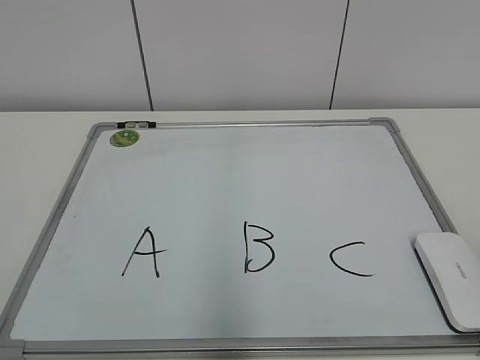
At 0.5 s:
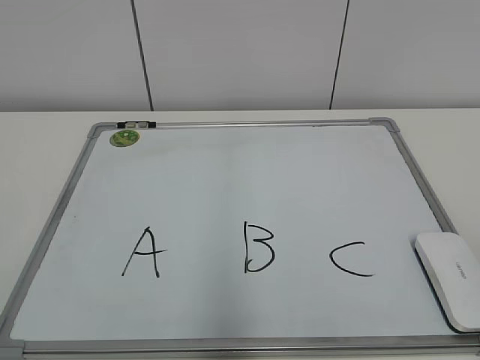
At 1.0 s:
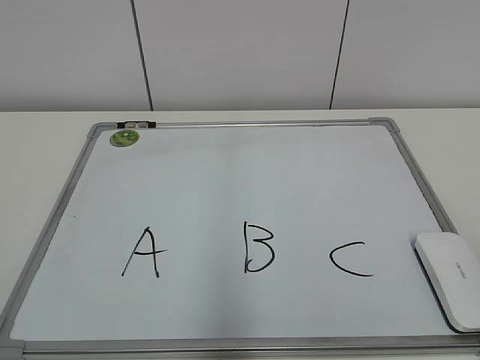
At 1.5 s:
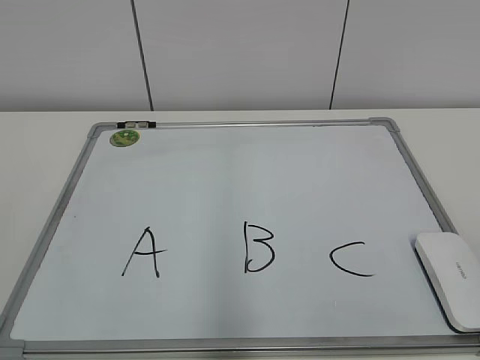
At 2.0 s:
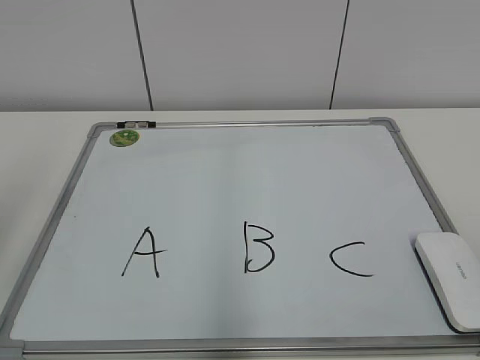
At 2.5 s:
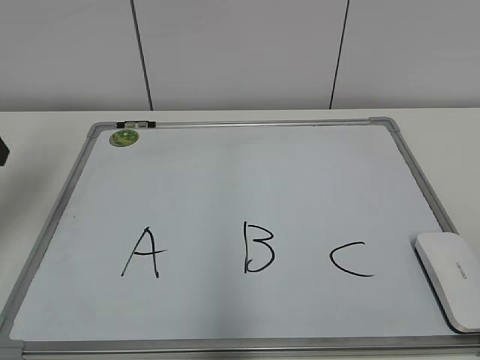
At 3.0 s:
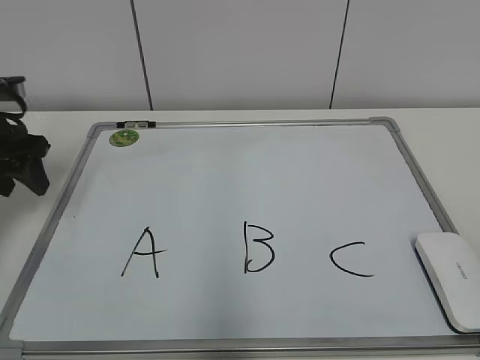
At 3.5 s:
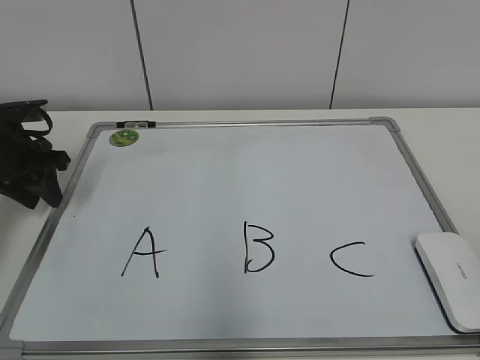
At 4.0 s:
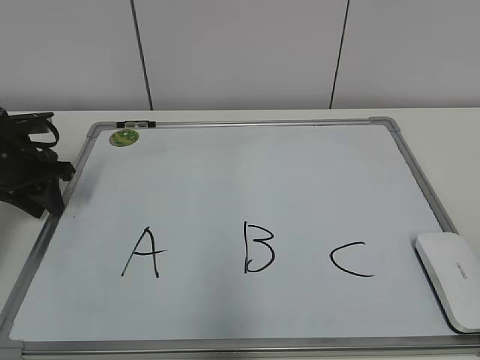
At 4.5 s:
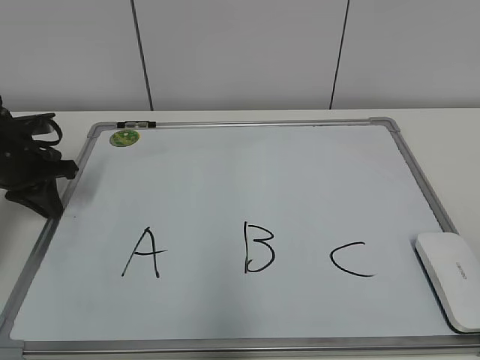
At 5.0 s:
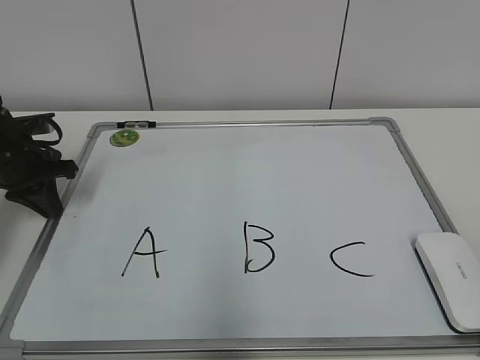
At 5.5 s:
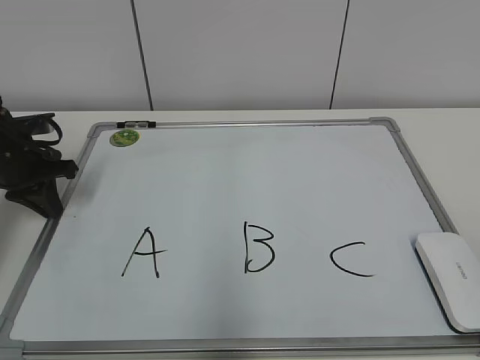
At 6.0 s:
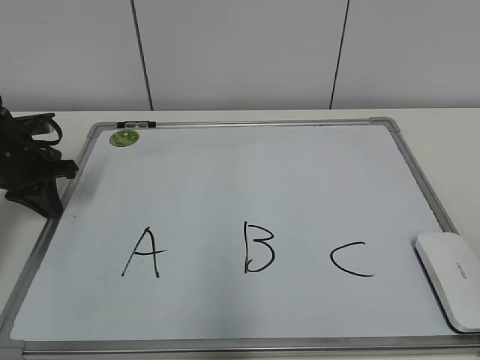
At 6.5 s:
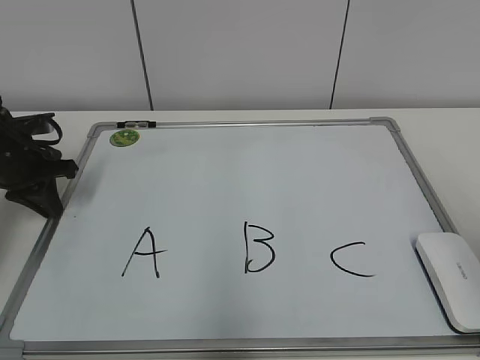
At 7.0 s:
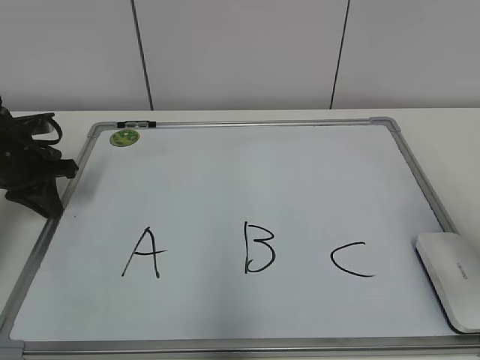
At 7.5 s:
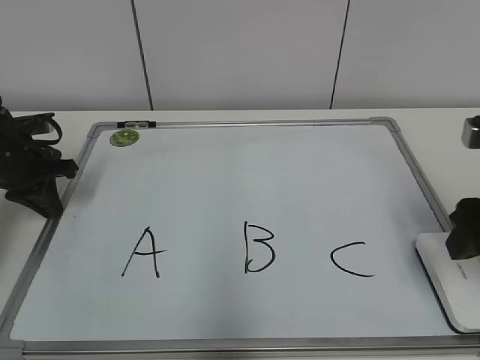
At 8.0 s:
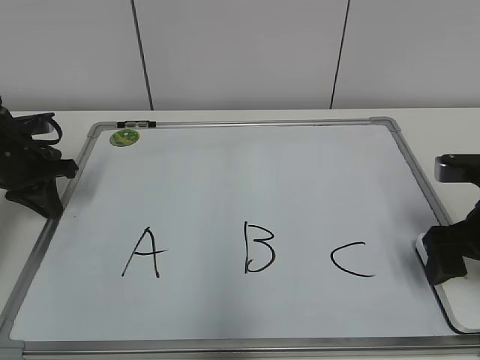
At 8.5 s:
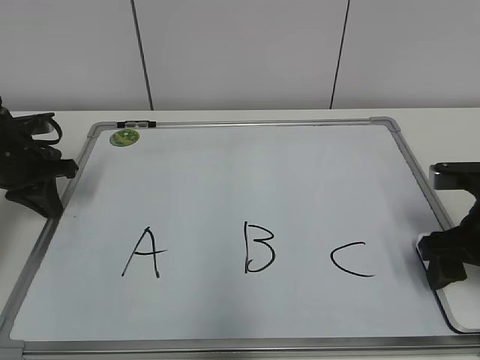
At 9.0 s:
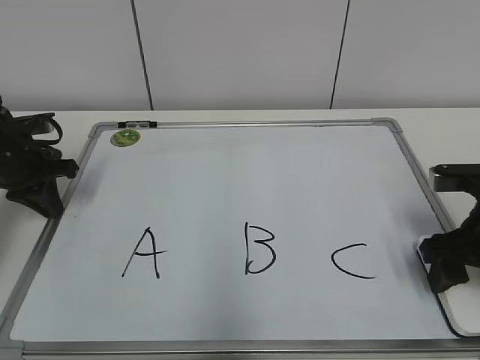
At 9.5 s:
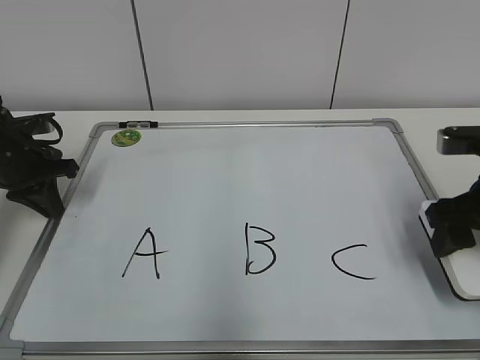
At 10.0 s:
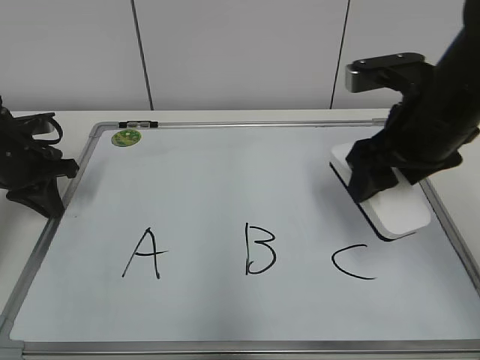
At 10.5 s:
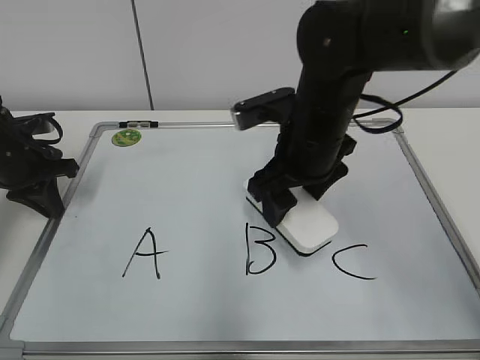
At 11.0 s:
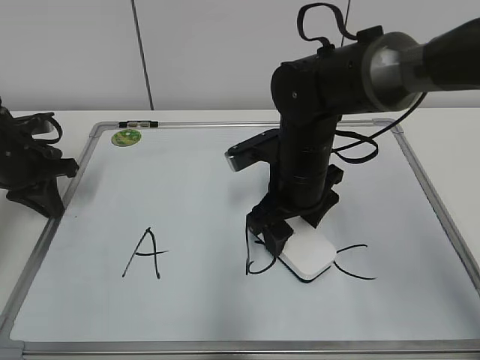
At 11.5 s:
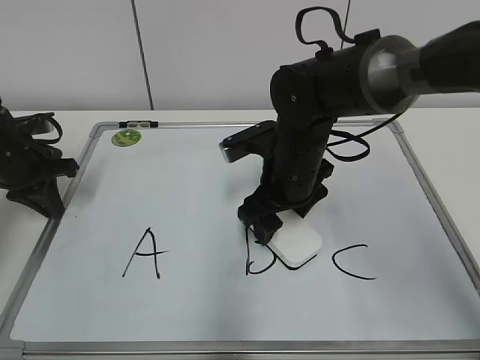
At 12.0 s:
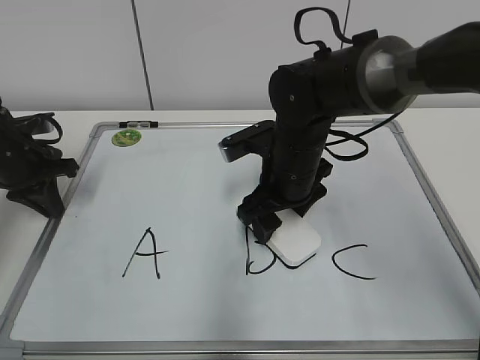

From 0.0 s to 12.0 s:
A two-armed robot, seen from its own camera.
Task of the whole recording: pick up the eraser on the blackboard and erase the letter "B".
Step, from 0.0 s to 4.0 s: Hold the drawing board steady with your left hand.
Step, from 5.0 s to 8.5 s: Grab the eraser with your right hand.
From 2.0 s to 4.0 s: The left gripper goes about 30 cm forward and downward, and closes.
From 4.0 s to 6.0 s: The left gripper closes up.
From 6.0 s to 8.0 s: The right gripper moves forward and downward, about 30 cm, and opens its fingers.
From 8.0 s to 10.0 s: The right gripper heads upward and to the left, covering some 10 cm, and closes up.
From 10.0 s to 12.0 s: The right gripper shifts approximately 15 cm to the left, downward and forward.

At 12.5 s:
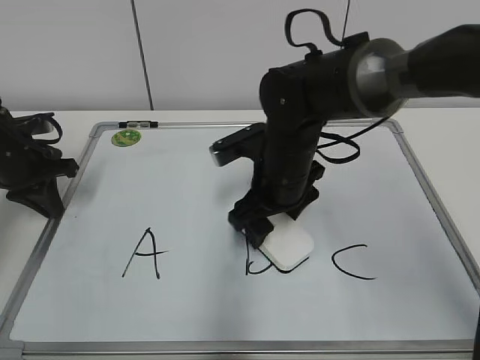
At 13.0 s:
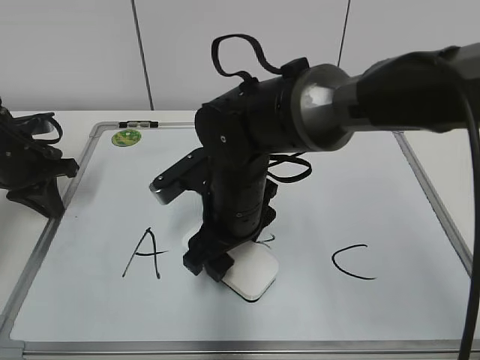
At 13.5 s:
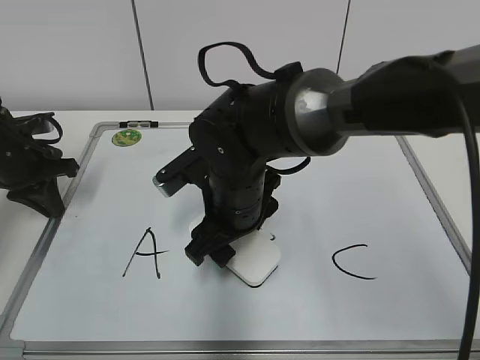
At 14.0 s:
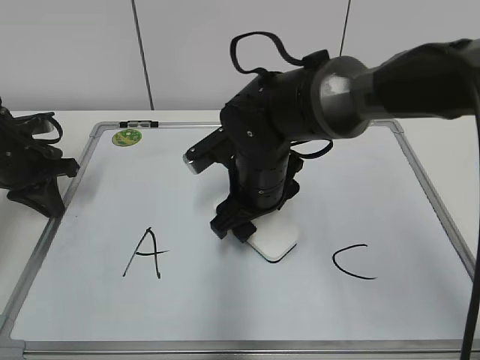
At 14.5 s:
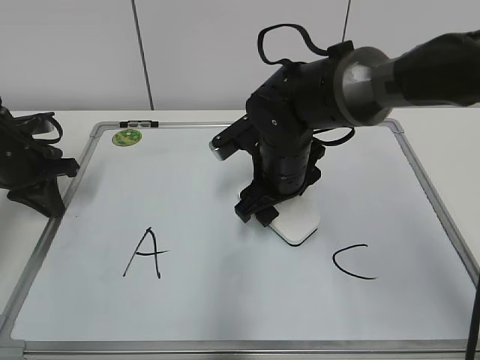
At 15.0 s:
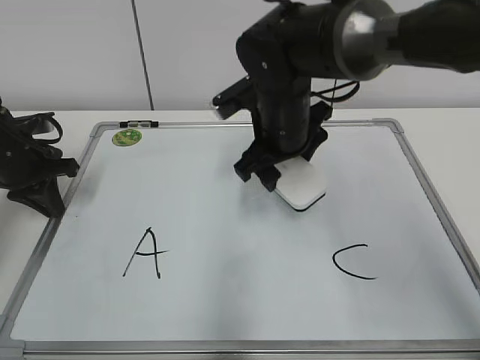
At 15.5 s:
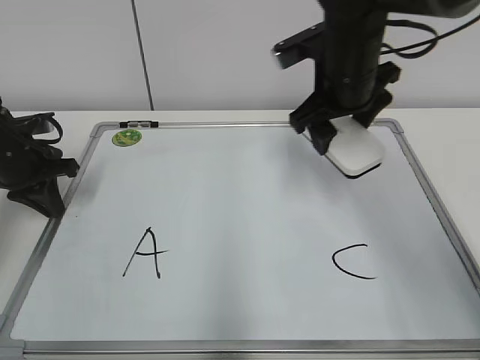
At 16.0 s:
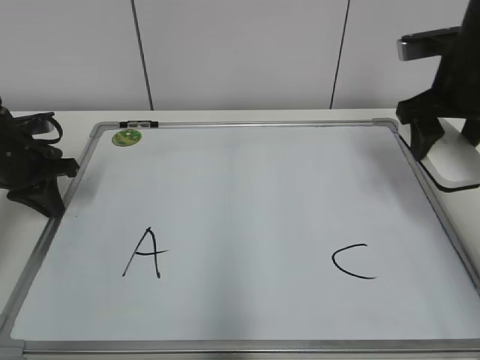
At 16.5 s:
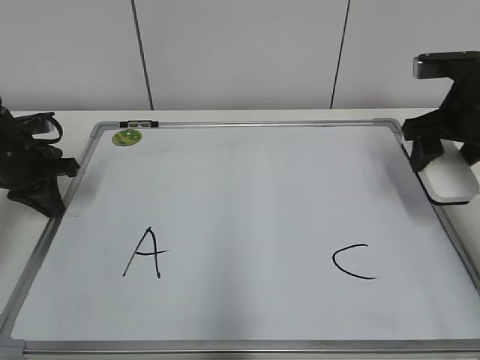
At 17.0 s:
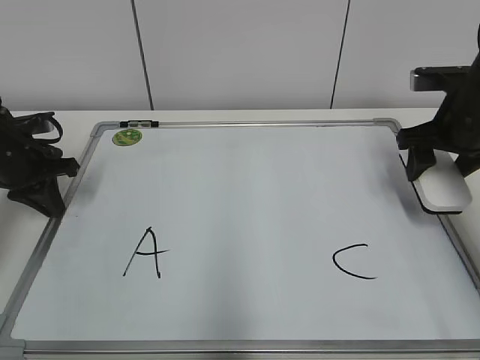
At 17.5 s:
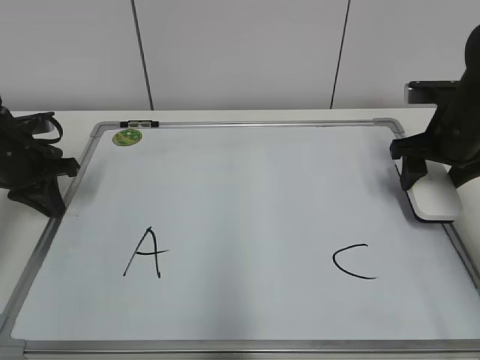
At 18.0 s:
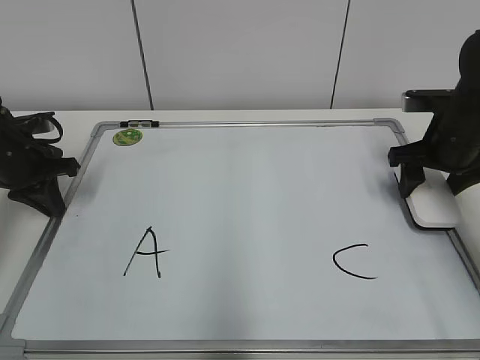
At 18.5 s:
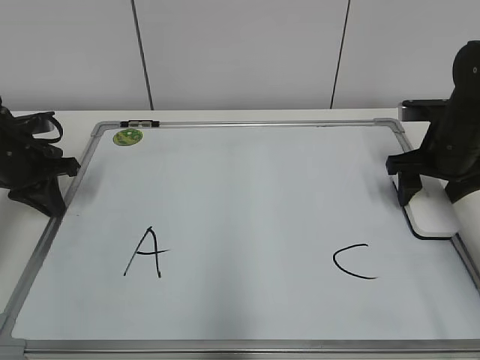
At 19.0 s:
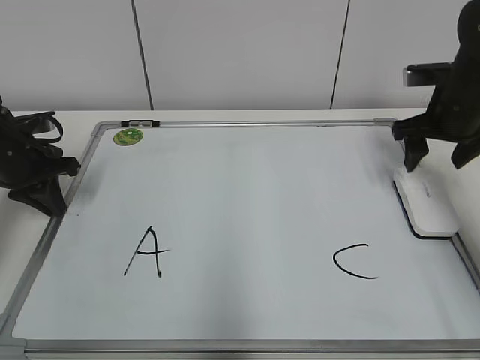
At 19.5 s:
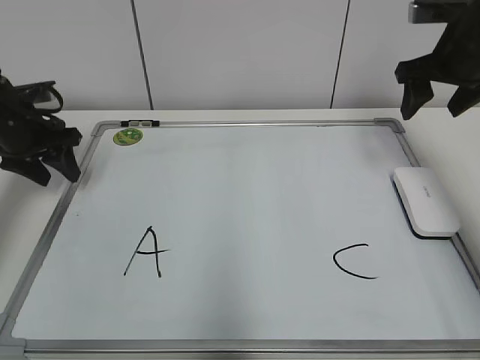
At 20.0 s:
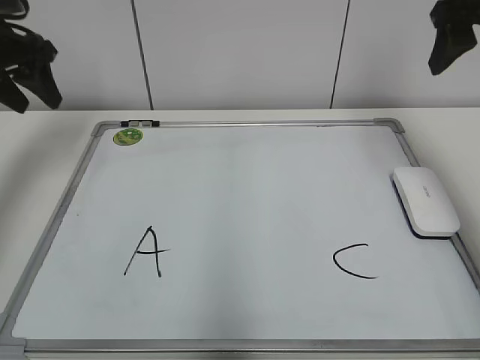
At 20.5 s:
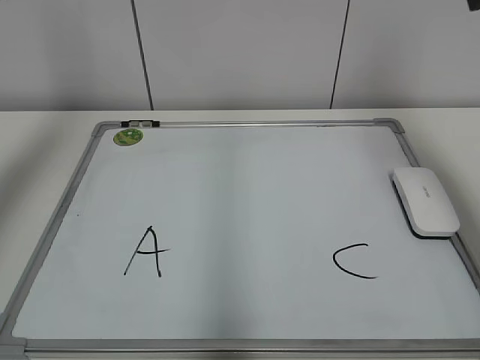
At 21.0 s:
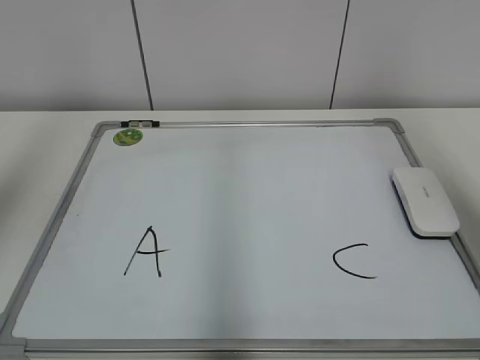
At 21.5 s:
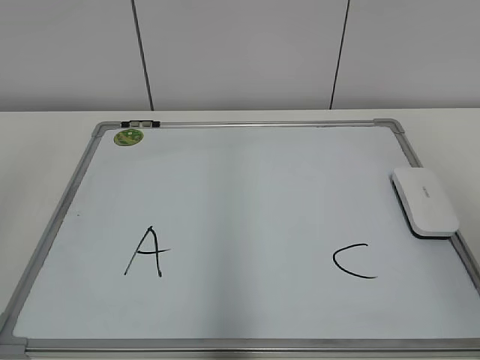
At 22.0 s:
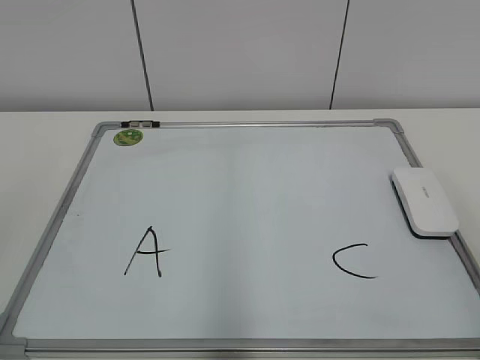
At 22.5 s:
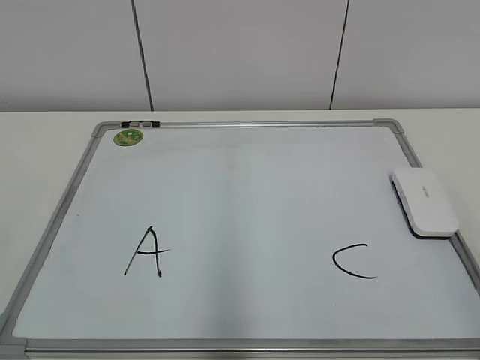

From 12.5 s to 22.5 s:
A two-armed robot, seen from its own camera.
Task of the whole recording: pick up the eraser on the blackboard and erase the letter "B".
Step, from 12.5 s to 14.5 s: Erase the letter B with your right hand.
Step, from 15.0 s to 18.5 s: Put down the eraser with your right hand.
From 14.5 s to 16.5 s: The right gripper is displaced to the right by approximately 20 cm.
From 16.5 s to 18.5 s: The right gripper shifts some 5 cm downward, and opens its fingers.
From 18.5 s to 20.5 s: Both grippers travel together upward, some 30 cm. The left gripper opens up.
From 20.5 s to 22.5 s: The left gripper heads backward, covering about 35 cm; the right gripper travels backward and downward by approximately 35 cm.

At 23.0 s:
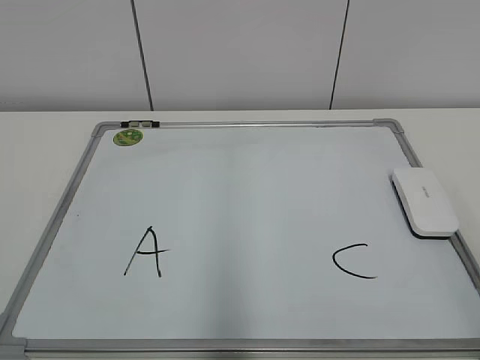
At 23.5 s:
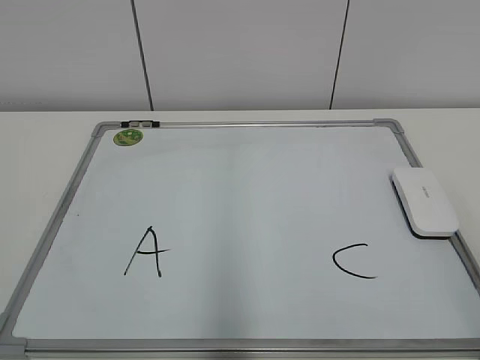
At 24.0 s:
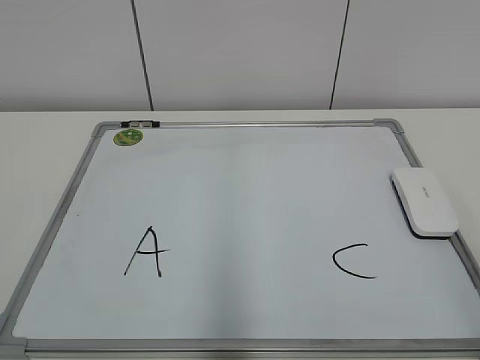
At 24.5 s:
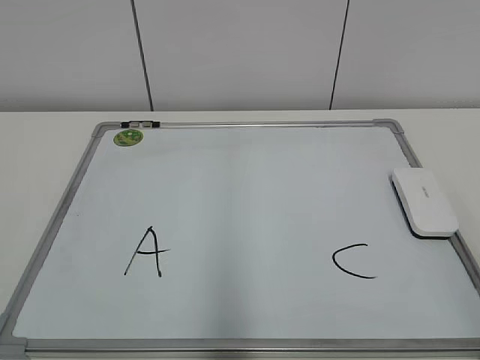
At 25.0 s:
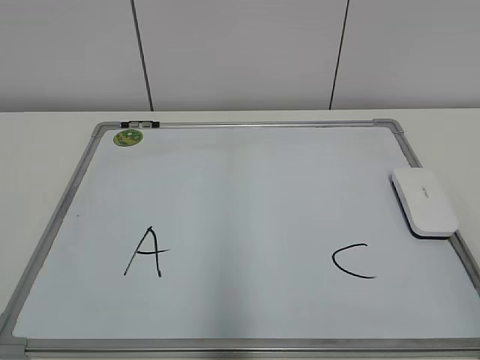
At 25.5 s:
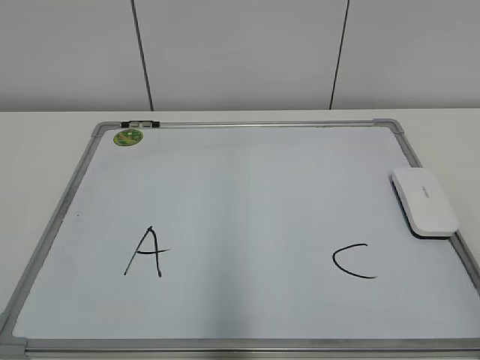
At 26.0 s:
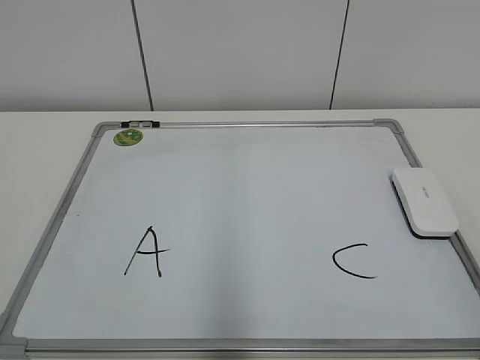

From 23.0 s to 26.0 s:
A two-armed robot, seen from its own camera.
Task of the whole recording: pick up the eraser on the blackboard and erase the letter "B".
From 23.0 s to 24.5 s: Both grippers stay put.
